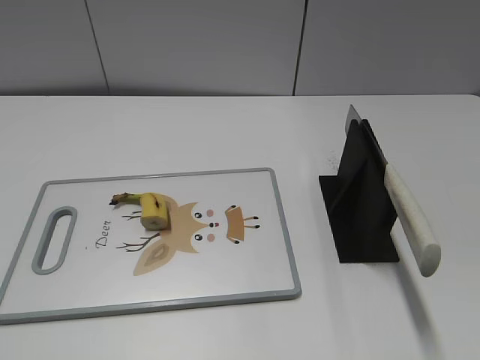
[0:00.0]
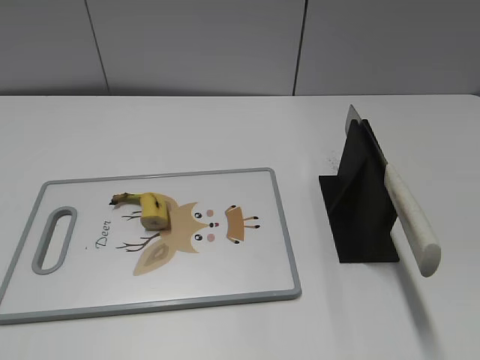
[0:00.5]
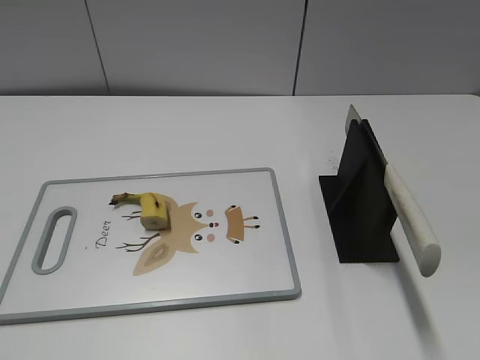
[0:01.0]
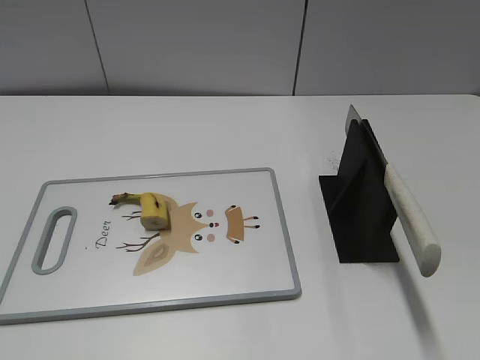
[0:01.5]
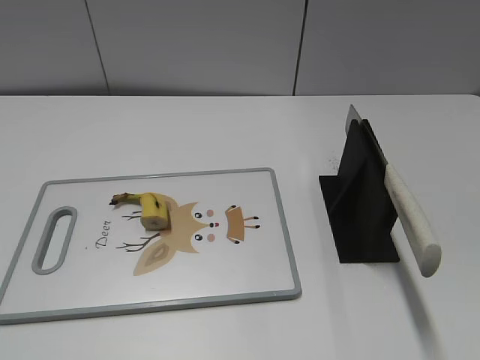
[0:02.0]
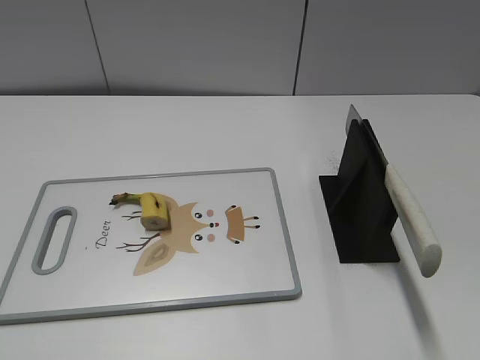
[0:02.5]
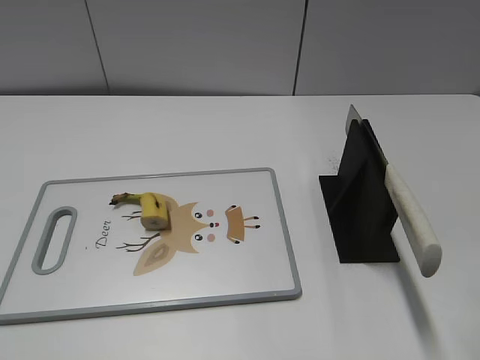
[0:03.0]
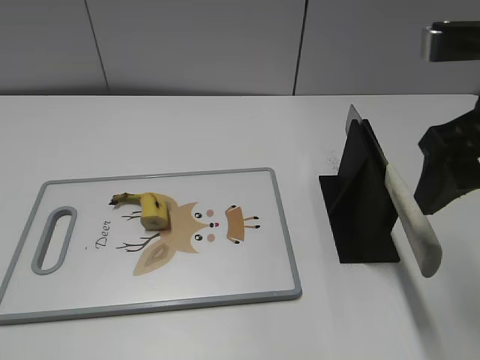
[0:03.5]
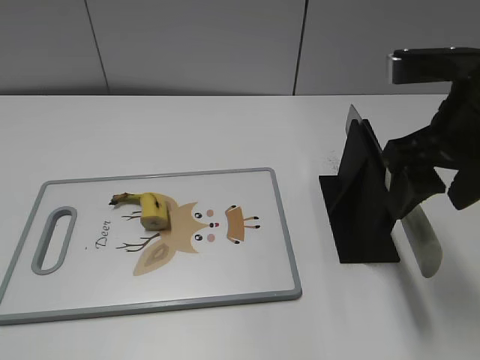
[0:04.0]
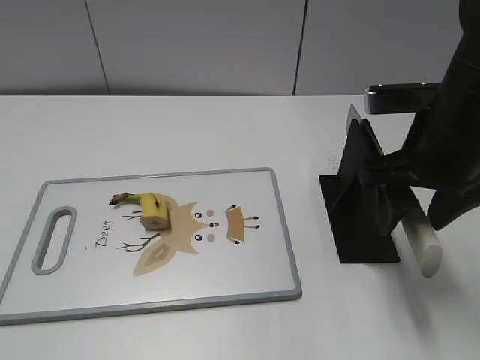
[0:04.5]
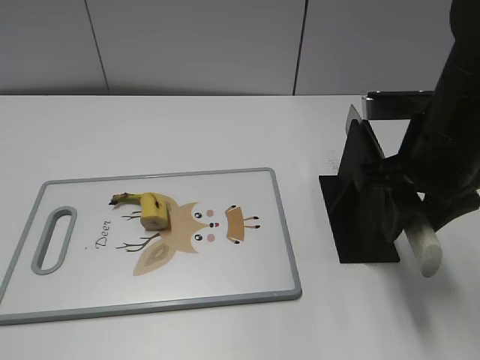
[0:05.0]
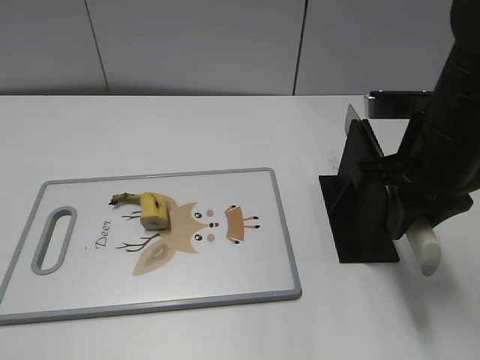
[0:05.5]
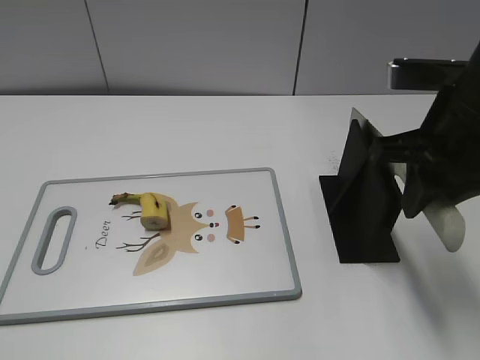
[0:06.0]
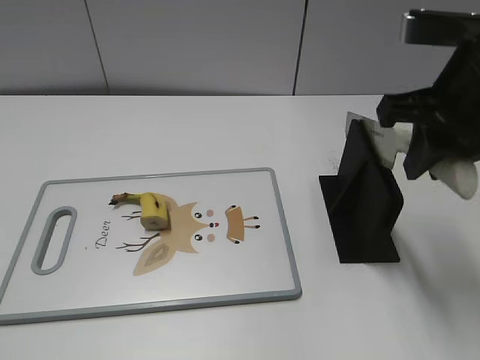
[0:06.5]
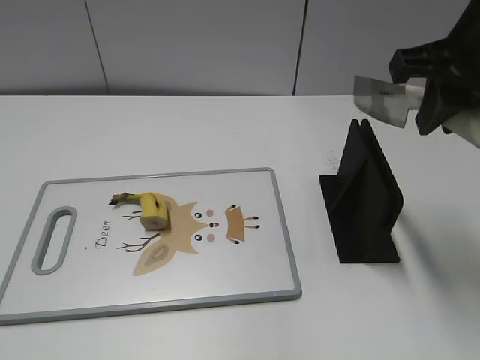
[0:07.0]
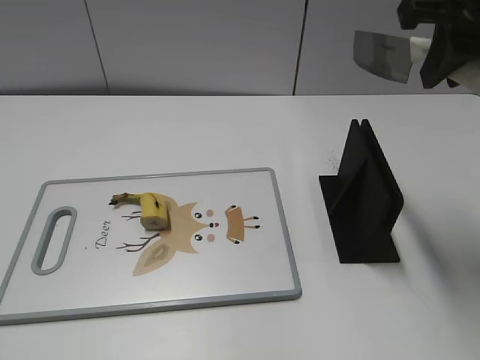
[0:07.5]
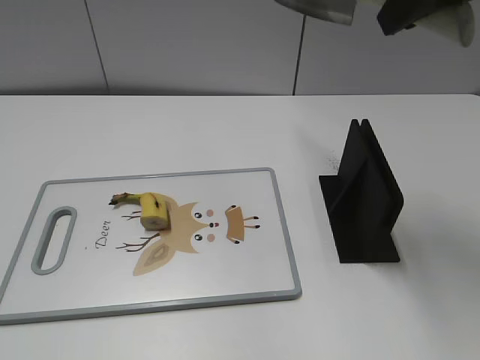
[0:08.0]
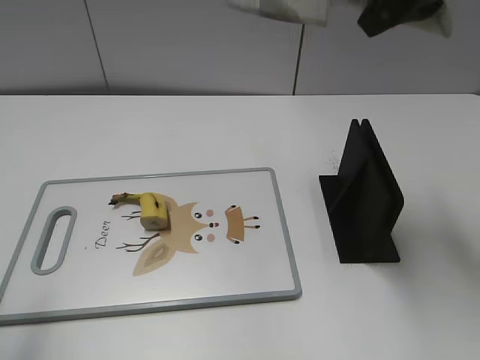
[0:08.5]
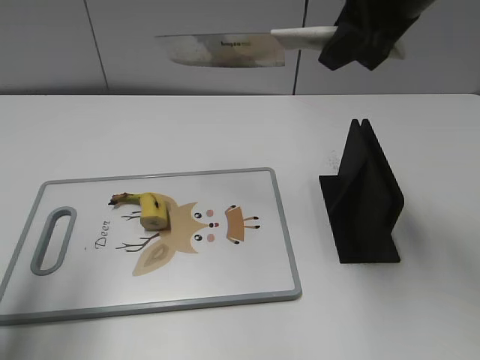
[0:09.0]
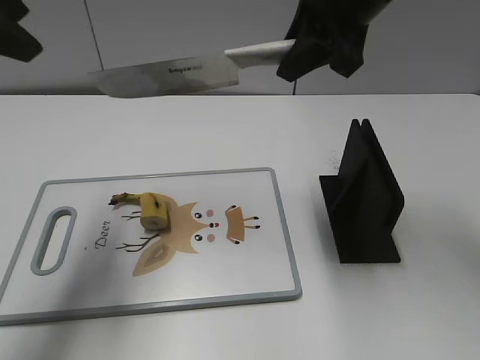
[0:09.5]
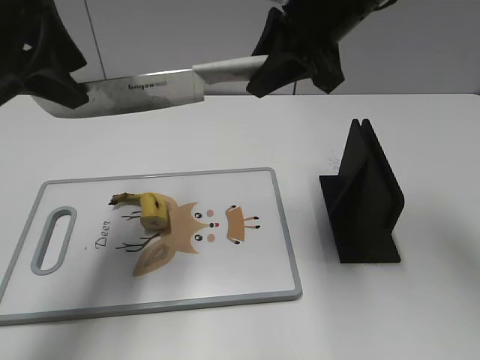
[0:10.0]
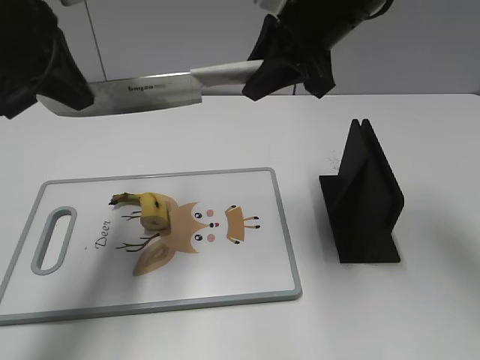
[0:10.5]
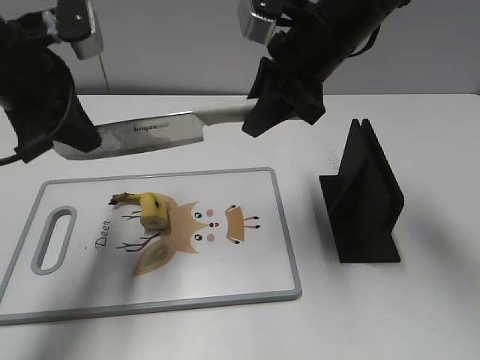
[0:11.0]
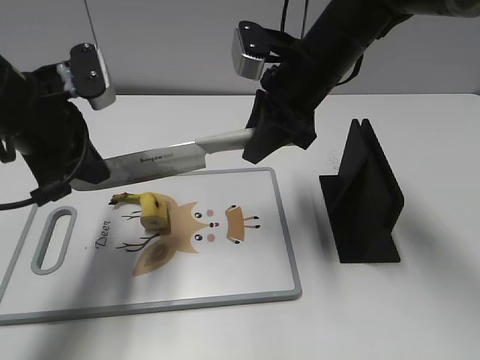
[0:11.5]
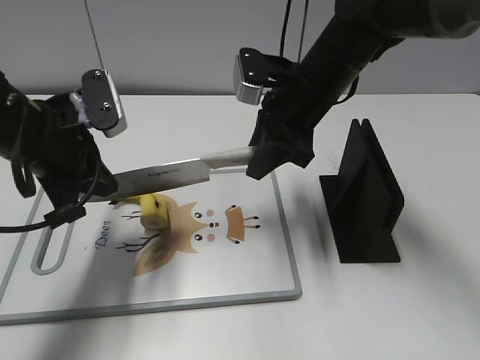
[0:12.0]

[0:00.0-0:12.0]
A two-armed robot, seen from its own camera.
Task of the whole recording: cut banana.
Step, 0:00.0 to 0:06.5: Grab the knife handle with your right hand.
0:02.0 to 0:04.0: The right gripper shifts about 20 cm forward and to the left.
0:04.0 to 0:06.0: The right gripper closes up.
0:06.0 to 0:08.0: The right gripper heads upward, covering about 15 cm.
0:08.0 to 0:10.0: The left gripper moves forward, some 30 cm; the right gripper moves downward, forward and to the left, some 15 cm.
0:10.0 to 0:12.0: Both grippers move downward, roughly 10 cm. The left gripper closes its fingers.

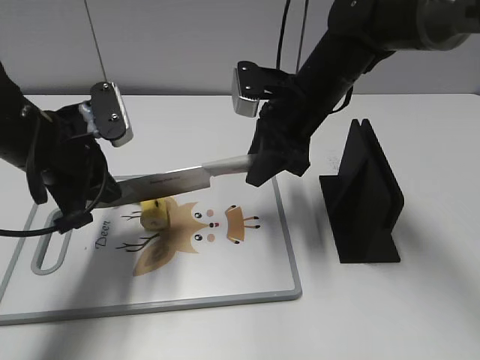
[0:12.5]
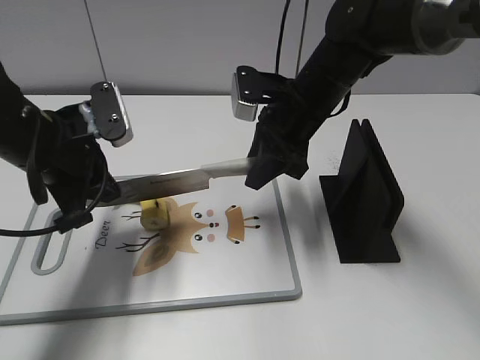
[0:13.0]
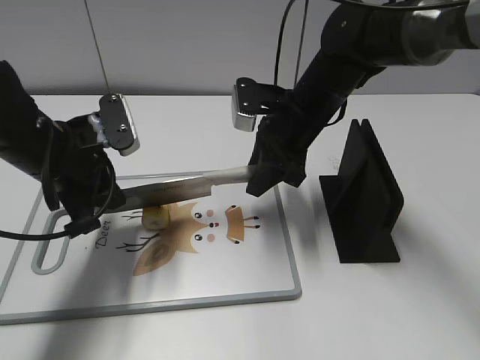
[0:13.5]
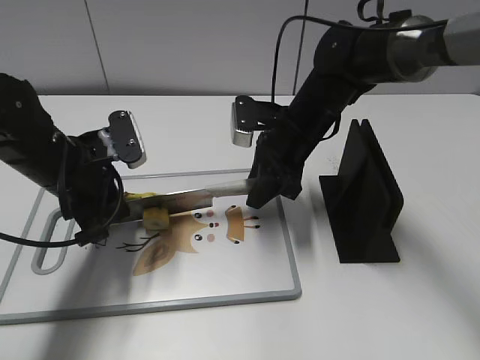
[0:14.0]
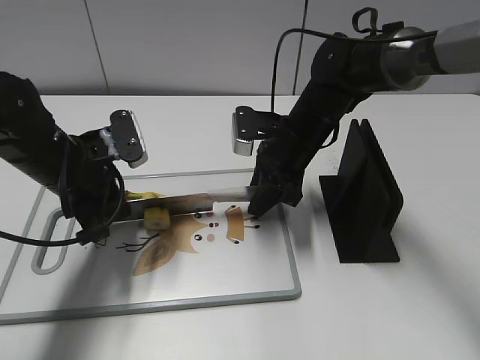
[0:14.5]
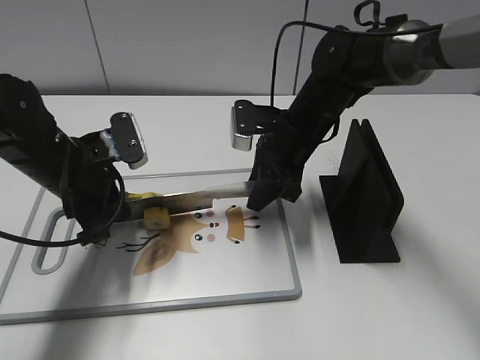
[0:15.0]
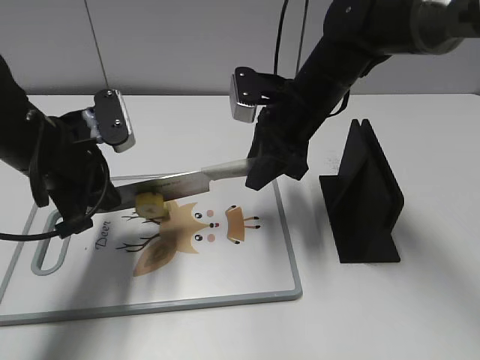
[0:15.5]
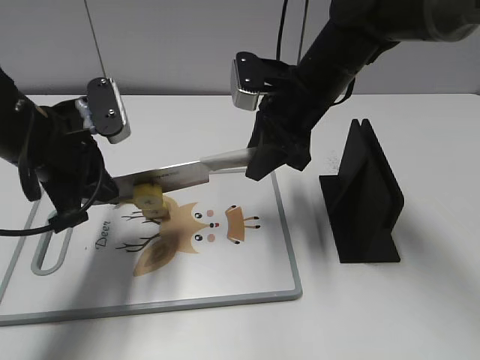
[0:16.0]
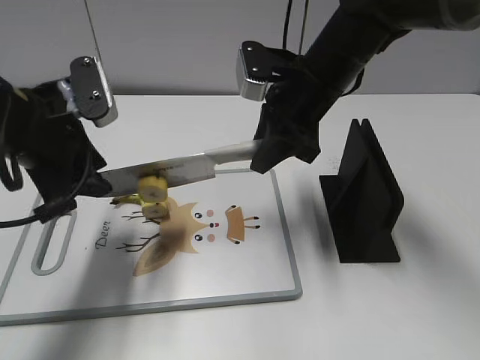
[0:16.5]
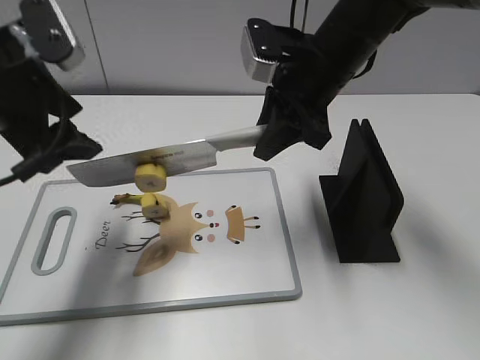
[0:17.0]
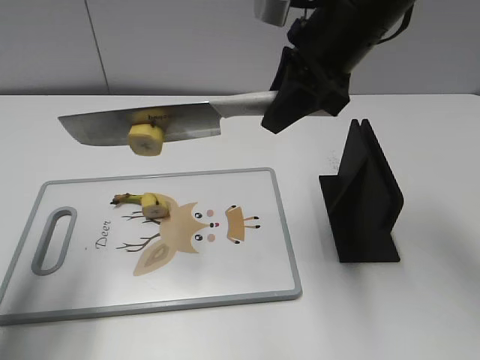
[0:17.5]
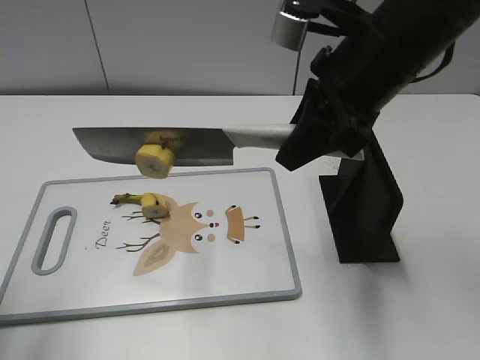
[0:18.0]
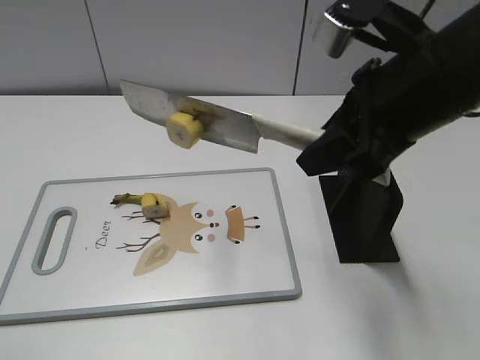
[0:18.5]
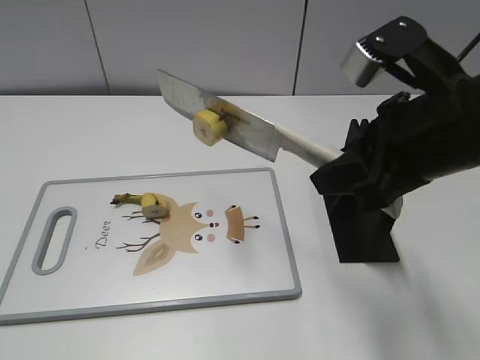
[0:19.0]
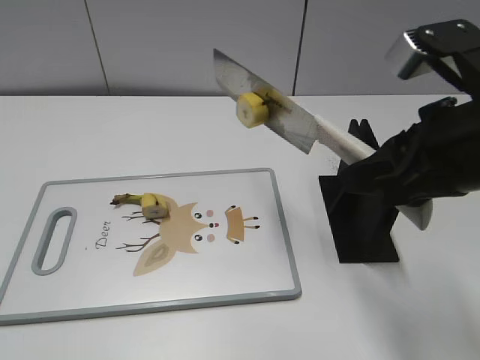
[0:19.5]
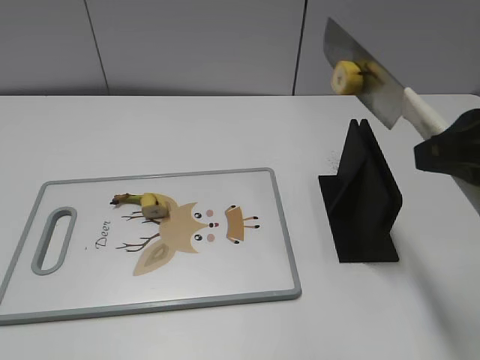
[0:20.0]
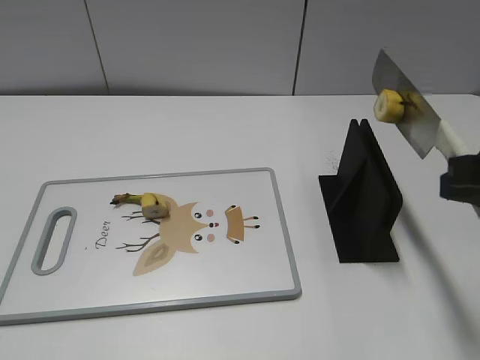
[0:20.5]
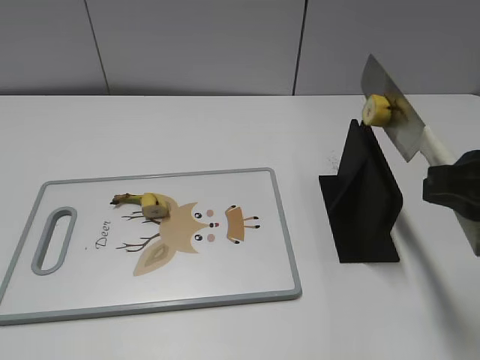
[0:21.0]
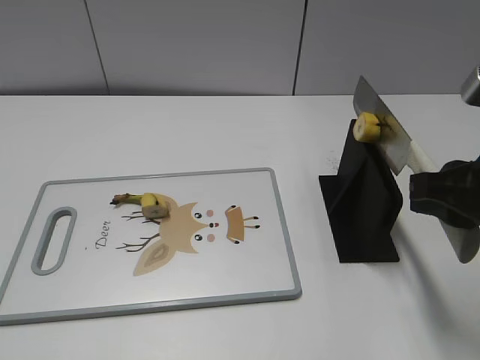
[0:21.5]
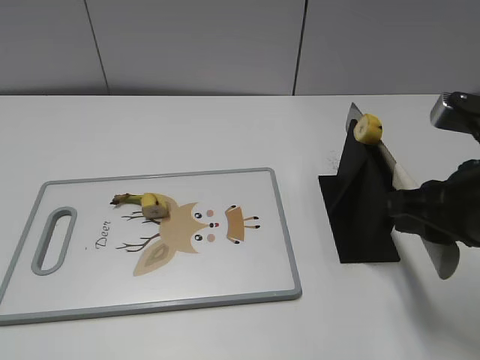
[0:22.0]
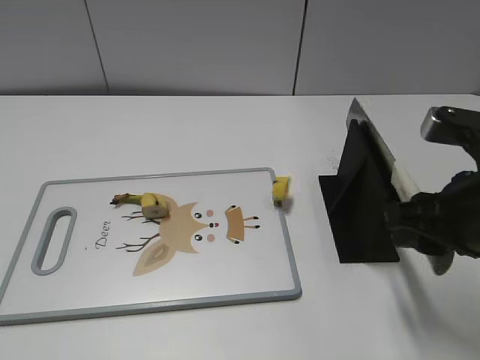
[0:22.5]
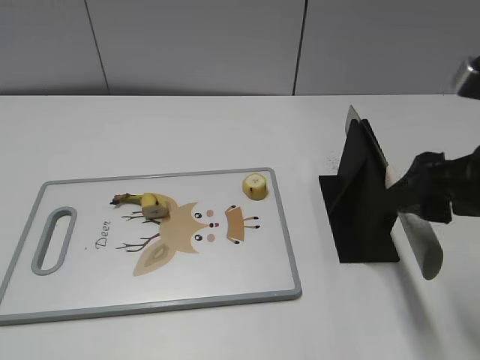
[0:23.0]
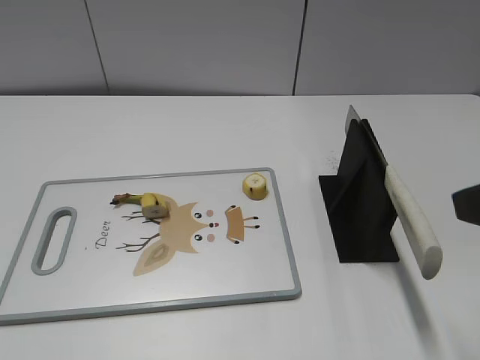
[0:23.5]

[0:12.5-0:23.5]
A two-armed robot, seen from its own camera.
Task of the whole recording: cut banana.
Step, 0:13.5 to 0:18.0: Cut the banana with your right hand.
Step, 0:18.5 to 0:20.0: Lift the knife with your right hand.
0:12.5 to 0:14.5: The right gripper is displaced downward by some 5 cm.
0:14.5 to 0:16.0: The two grippers go roughly 5 cm upward.
0:16.0 to 0:18.0: The right gripper moves upward and backward, some 15 cm, while the left gripper travels upward, backward and to the left by some 25 cm, and opens up.
0:18.0 to 0:20.0: The right gripper goes approximately 15 cm backward and to the right. Meanwhile the left gripper shifts some 15 cm backward and downward.
0:20.0 to 0:21.5: The right gripper is displaced downward by approximately 5 cm.
0:21.5 to 0:23.5: The right gripper is displaced upward by approximately 5 cm, and opens up.

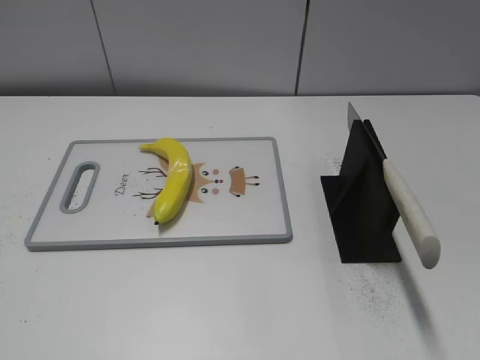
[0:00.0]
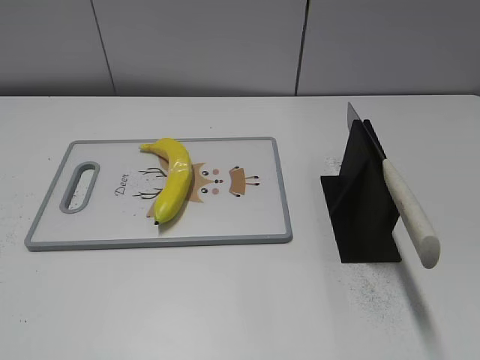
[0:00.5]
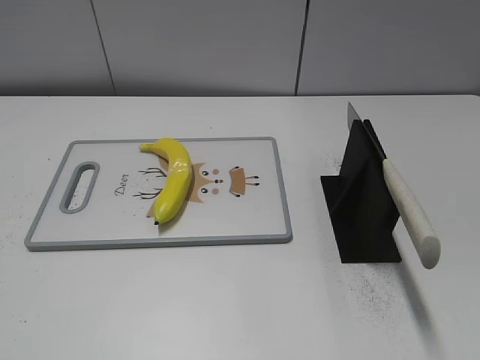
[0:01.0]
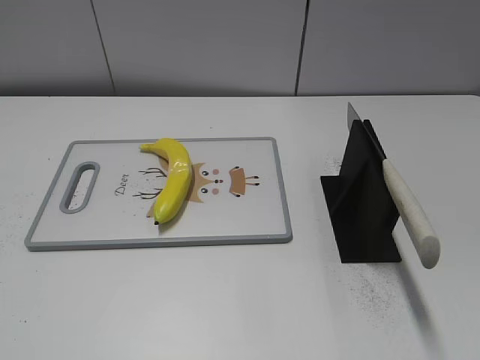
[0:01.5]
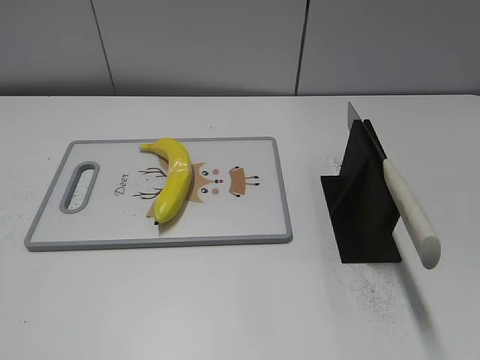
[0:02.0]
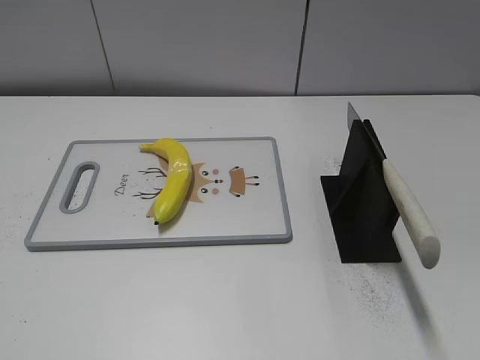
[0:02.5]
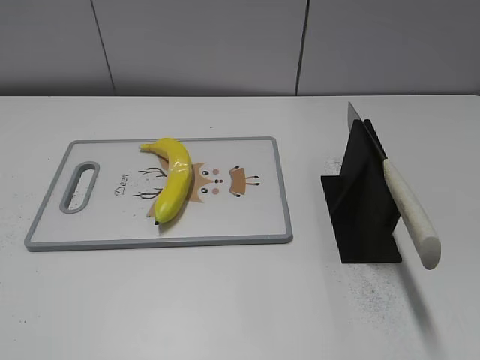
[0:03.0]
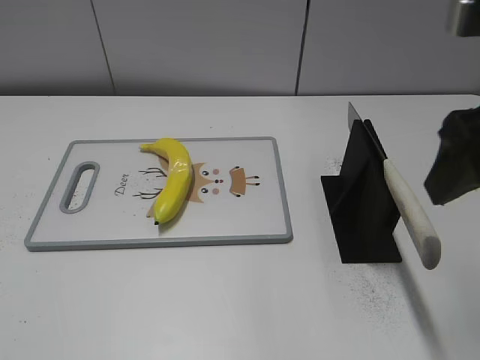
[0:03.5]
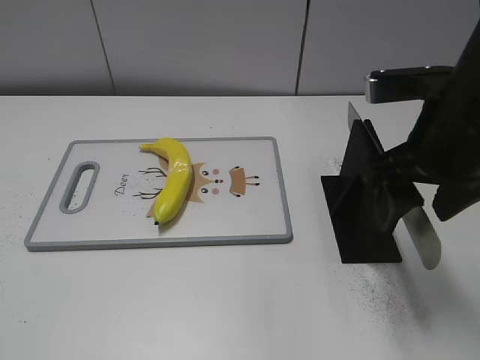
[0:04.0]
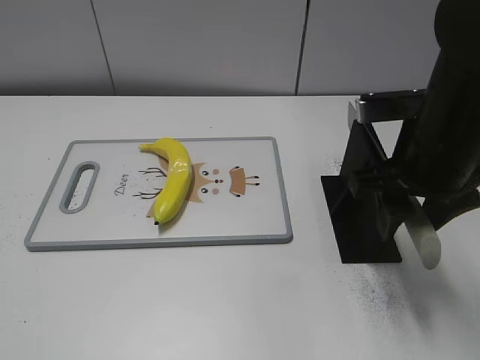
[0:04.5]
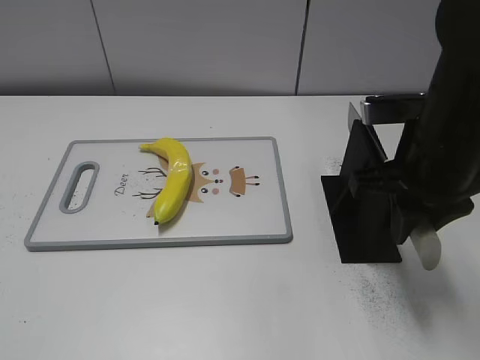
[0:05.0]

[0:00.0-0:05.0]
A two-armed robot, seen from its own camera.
Task of the whole recording: cut plastic banana.
0:02.5 to 0:05.0: The right gripper moves forward, to the left and downward, some 30 cm, and closes.
